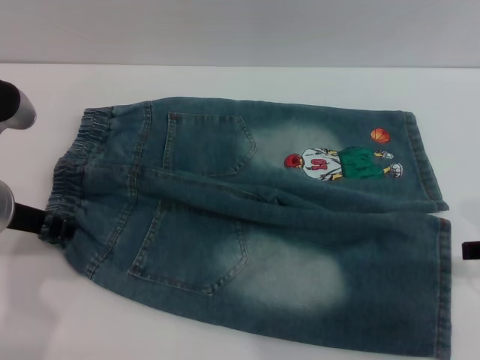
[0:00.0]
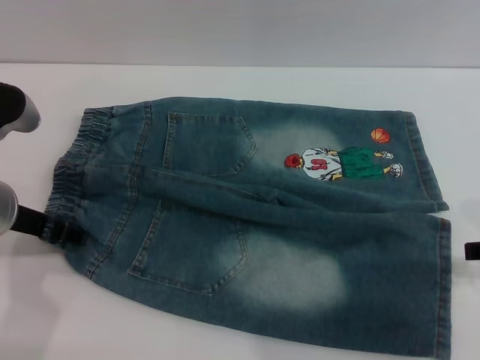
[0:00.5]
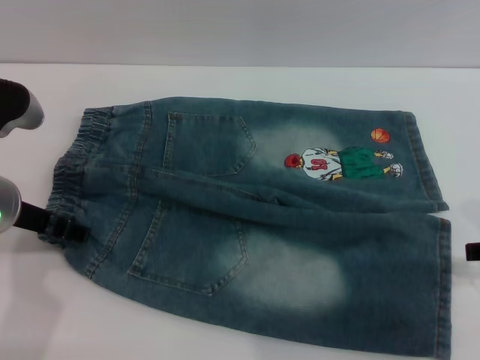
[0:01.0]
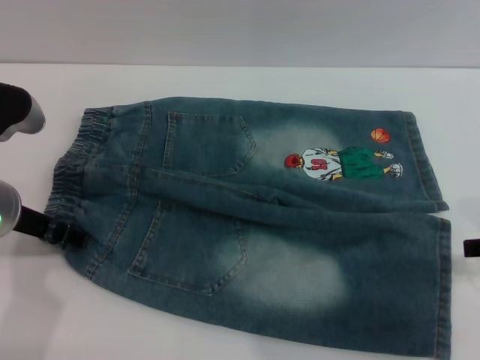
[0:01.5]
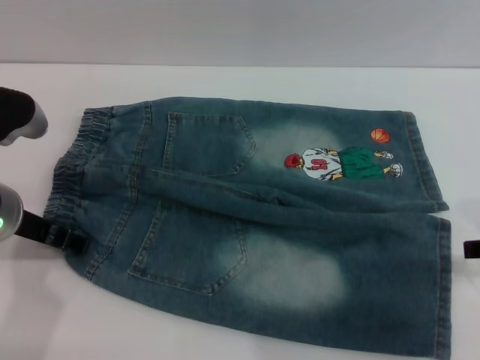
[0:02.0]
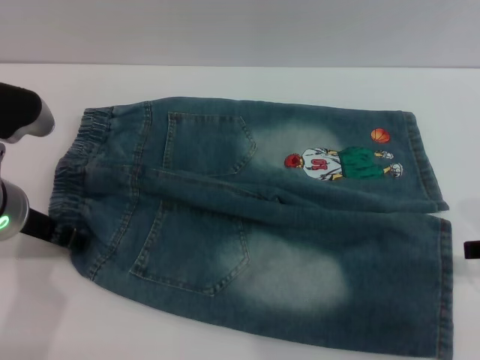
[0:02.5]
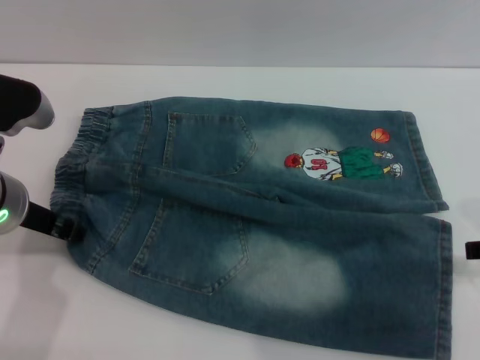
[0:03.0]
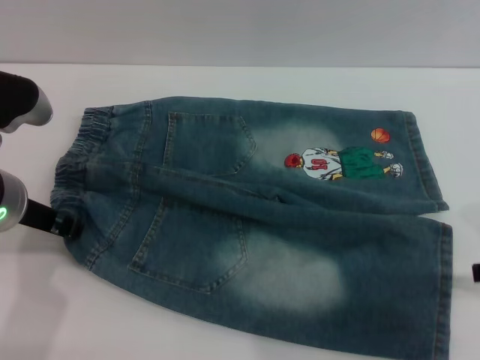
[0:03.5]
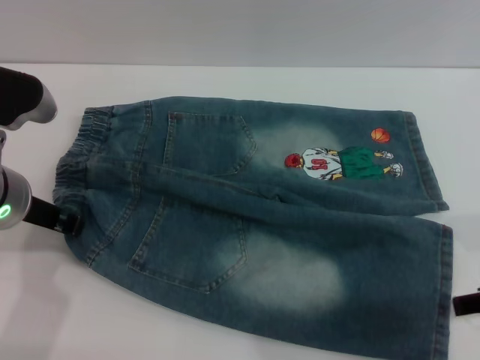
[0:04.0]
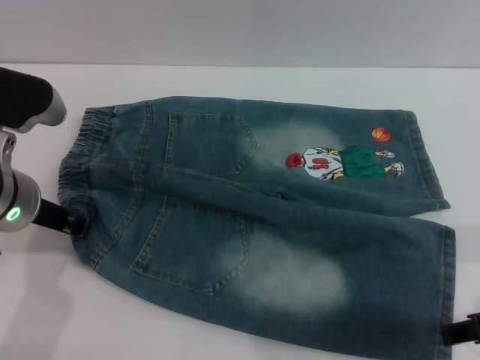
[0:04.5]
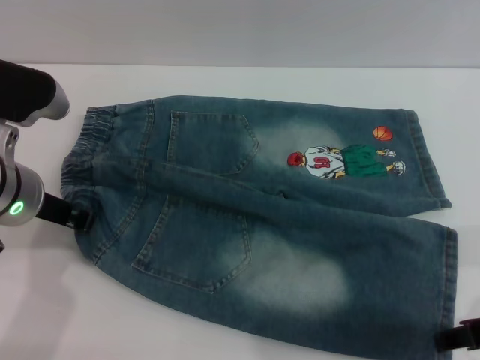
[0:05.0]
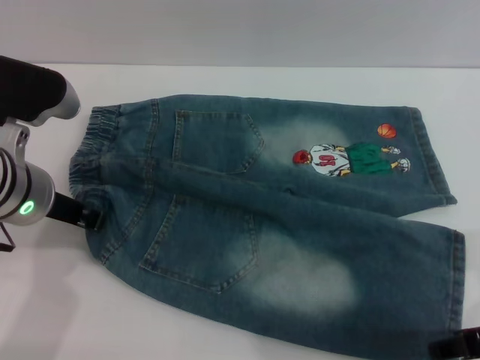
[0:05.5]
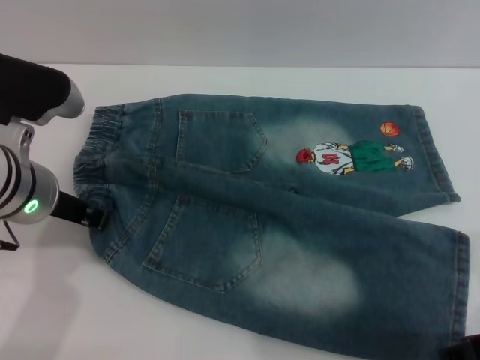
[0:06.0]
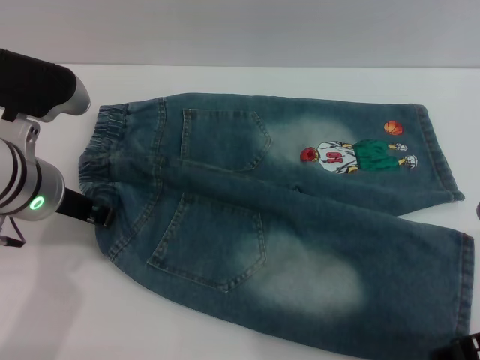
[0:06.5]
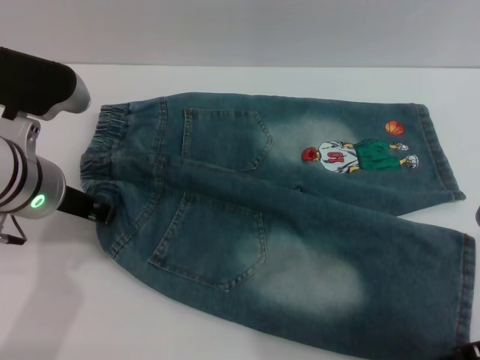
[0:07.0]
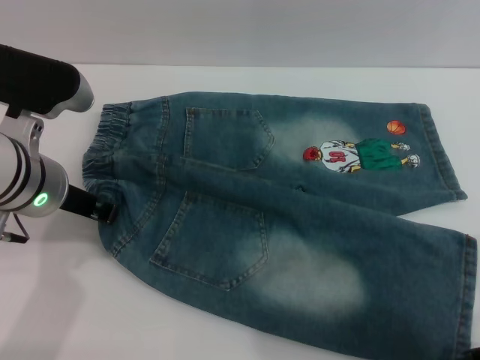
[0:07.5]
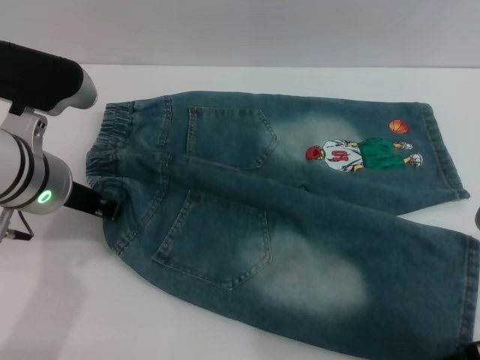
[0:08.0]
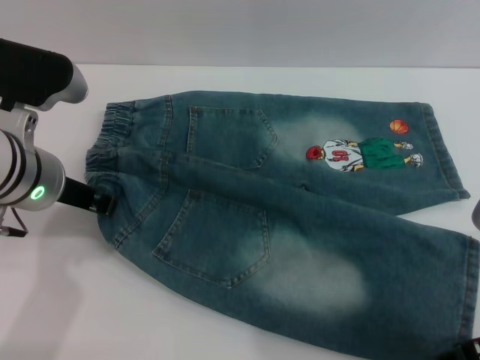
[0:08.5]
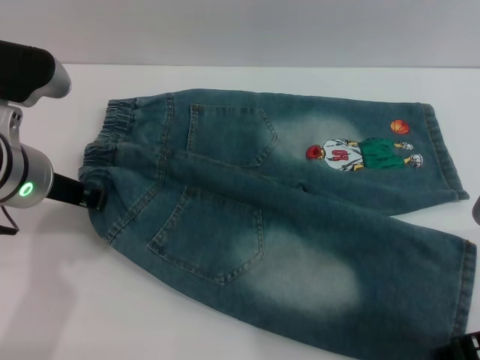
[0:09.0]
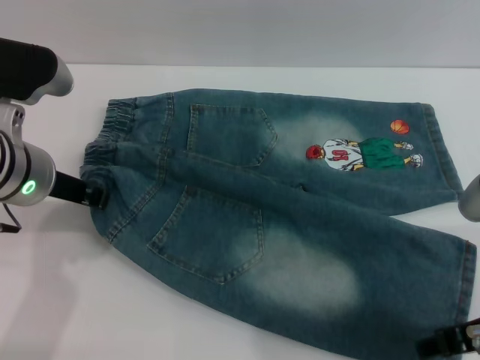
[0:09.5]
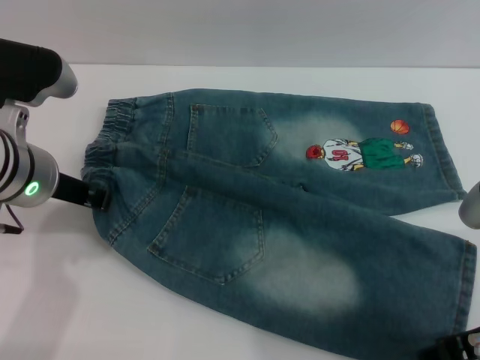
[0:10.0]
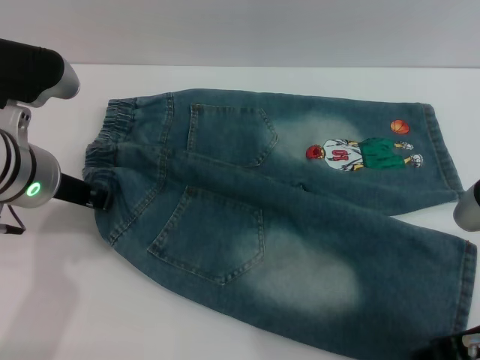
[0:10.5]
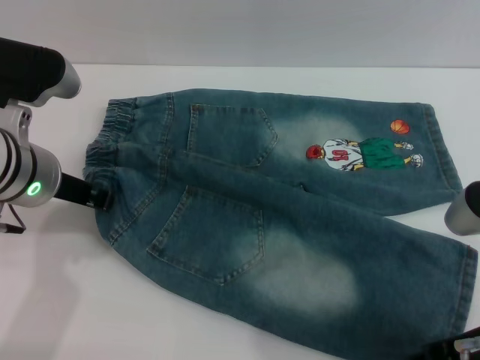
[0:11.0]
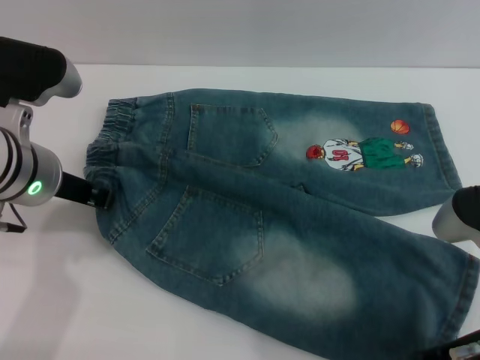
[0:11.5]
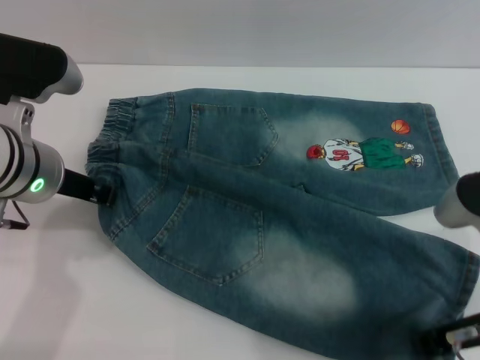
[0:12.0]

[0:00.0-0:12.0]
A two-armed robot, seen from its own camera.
0:00.0 to 0:02.0: The left gripper opens.
0:02.0 to 0:04.0: The left gripper closes its fingers.
0:04.0 to 0:06.0: There are only small adjustments of the grippers.
0:06.0 to 0:08.0: The two grippers keep their place.
0:08.0 to 0:10.0: The grippers make only small movements.
0:10.0 to 0:12.0: The right gripper closes up.

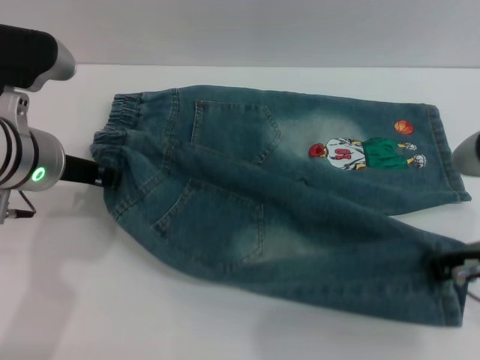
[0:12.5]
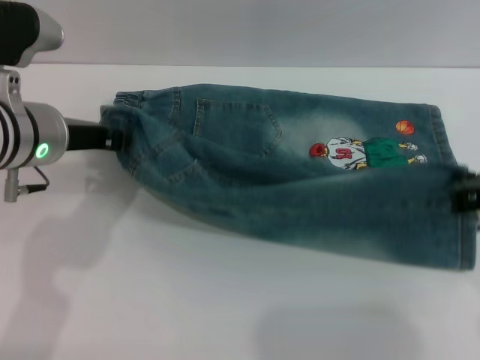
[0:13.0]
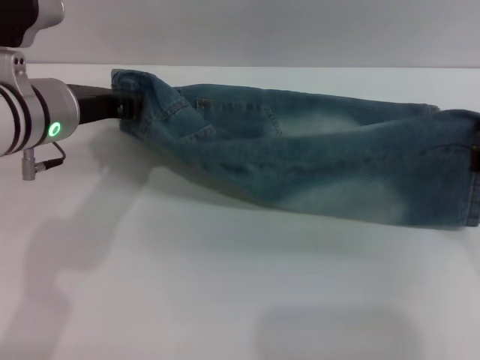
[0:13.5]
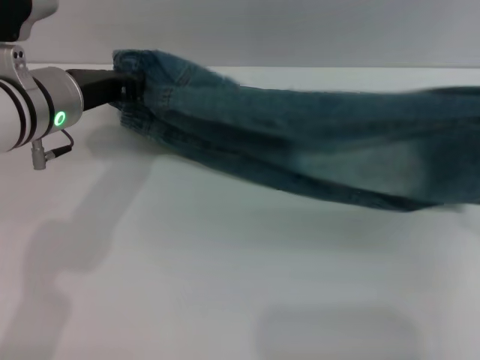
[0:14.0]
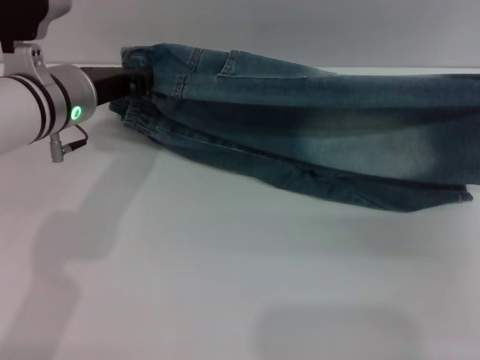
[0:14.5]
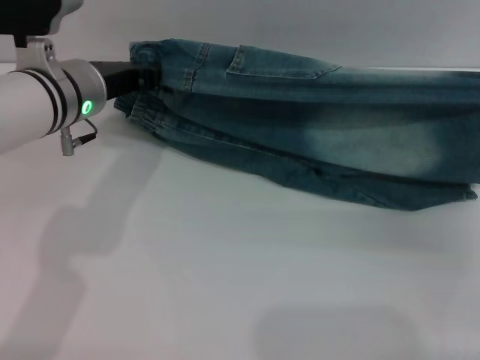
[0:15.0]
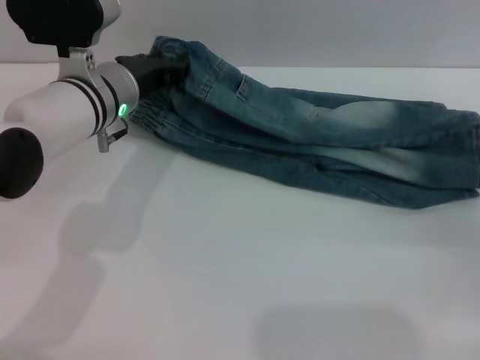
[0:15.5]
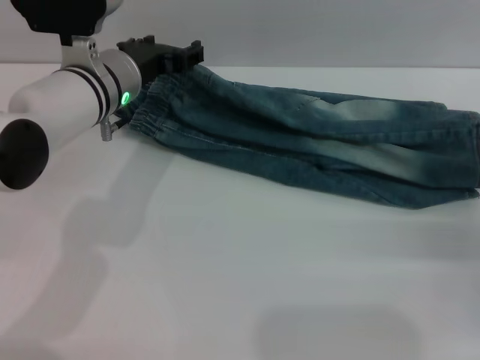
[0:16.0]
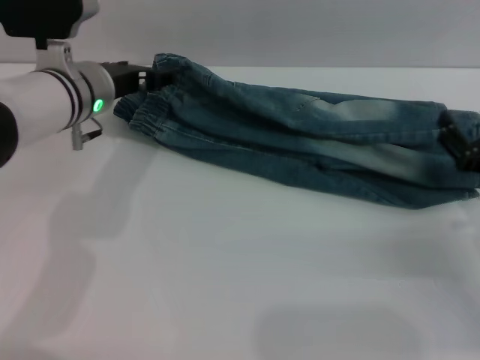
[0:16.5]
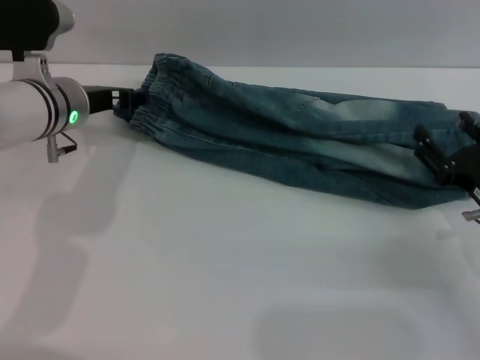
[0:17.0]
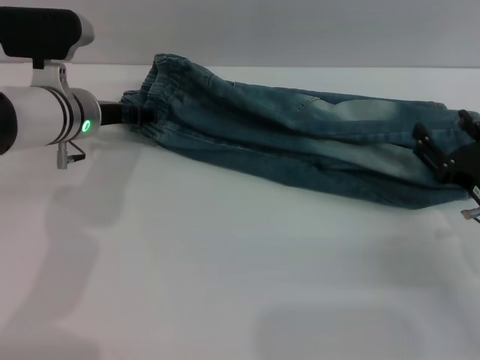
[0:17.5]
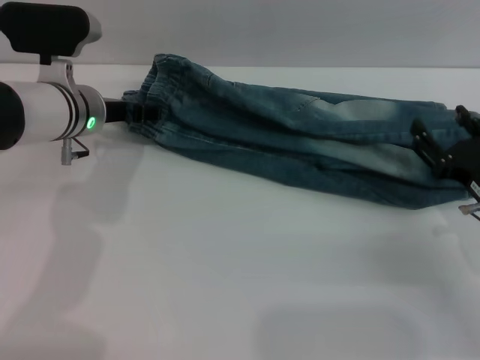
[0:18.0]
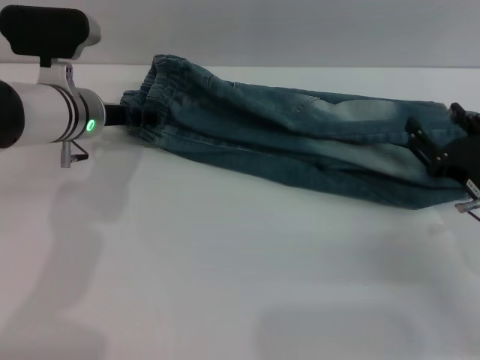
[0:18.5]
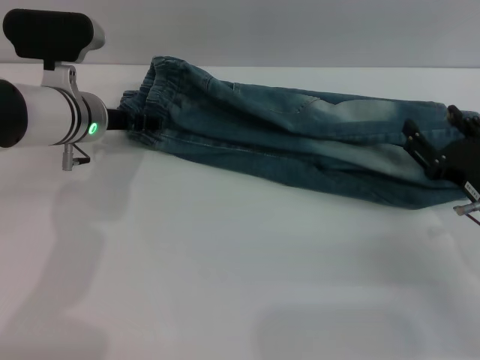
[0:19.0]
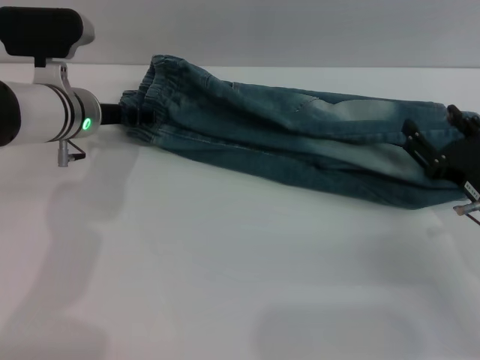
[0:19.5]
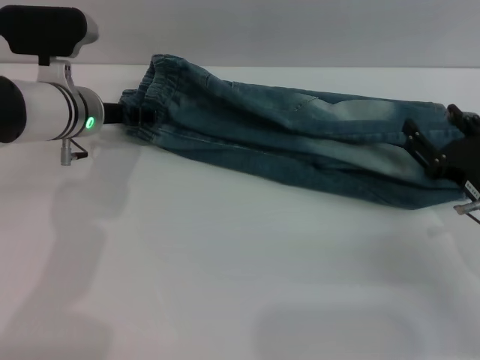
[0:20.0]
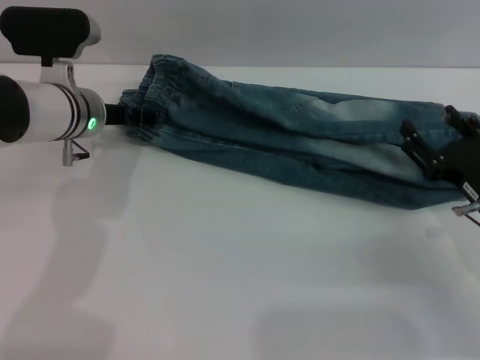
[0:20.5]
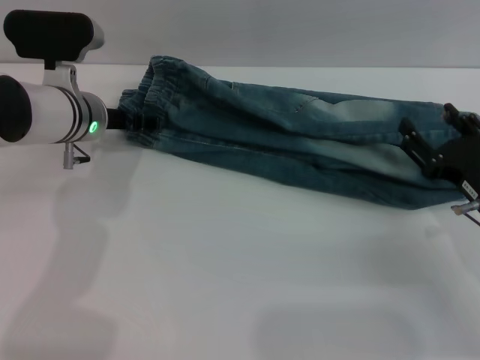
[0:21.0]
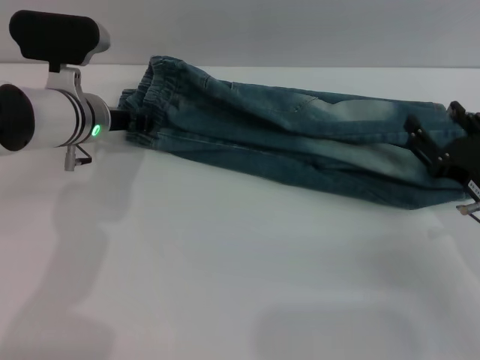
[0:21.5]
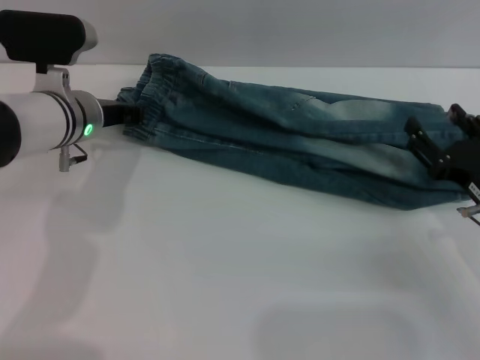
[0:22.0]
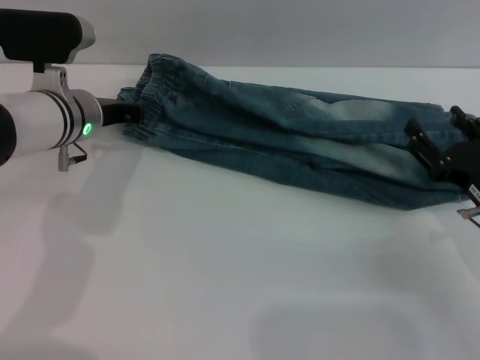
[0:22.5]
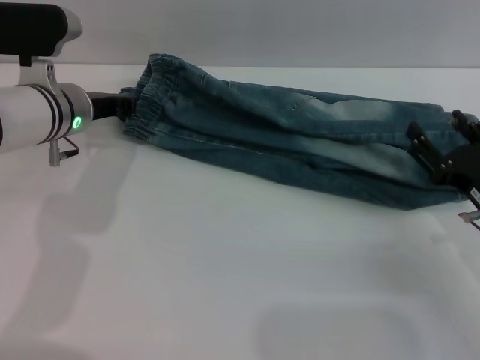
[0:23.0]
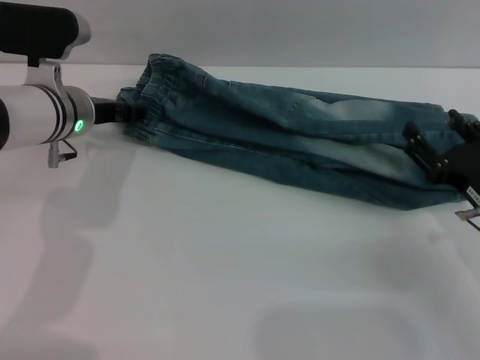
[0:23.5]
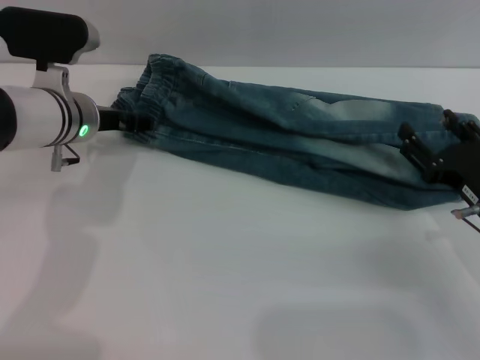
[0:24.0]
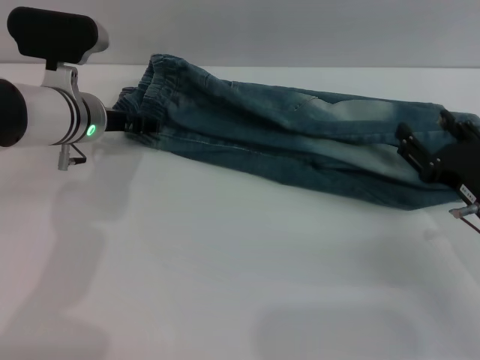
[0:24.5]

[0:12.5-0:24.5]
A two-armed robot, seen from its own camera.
Step, 0:12.5 to 0:23.0: Fold the bottom of the pants upward with both grippers.
0:12.5 to 0:14.5: The right gripper travels to the right by some 10 cm.
0:14.5 to 0:16.5: The left gripper opens up. Meanwhile the right gripper is displaced downward by about 10 cm, and opens its fingers.
0:16.5 to 0:18.5: The grippers make only small movements.
0:18.5 to 0:20.5: Neither gripper changes place.
0:20.5 to 0:22.5: The left gripper closes its fingers.
0:22.5 to 0:24.5: The left gripper opens up.

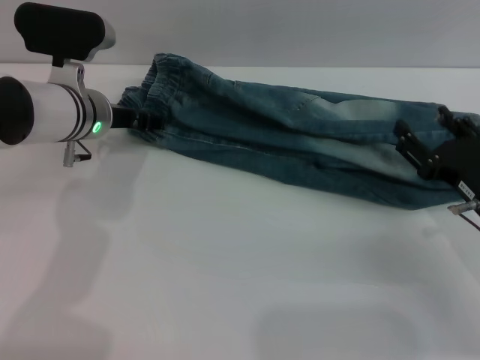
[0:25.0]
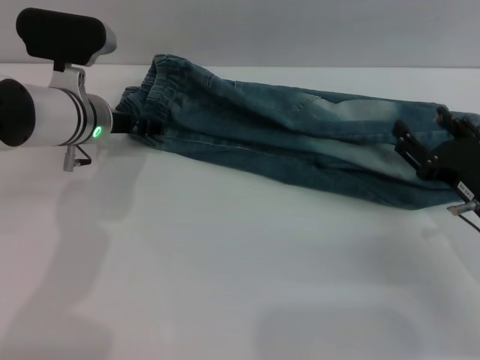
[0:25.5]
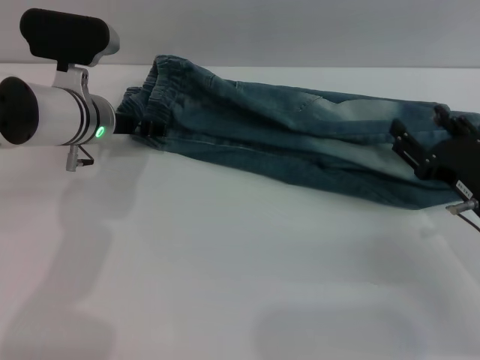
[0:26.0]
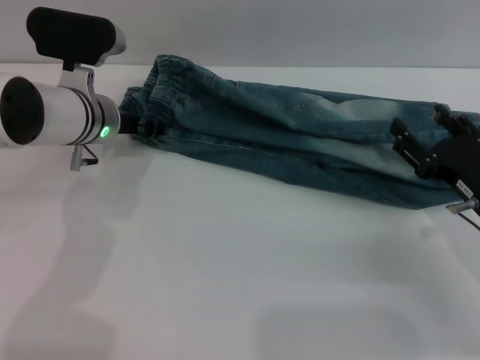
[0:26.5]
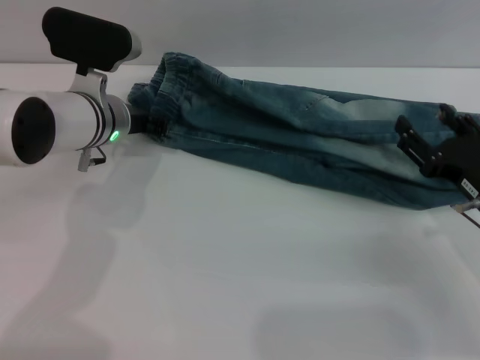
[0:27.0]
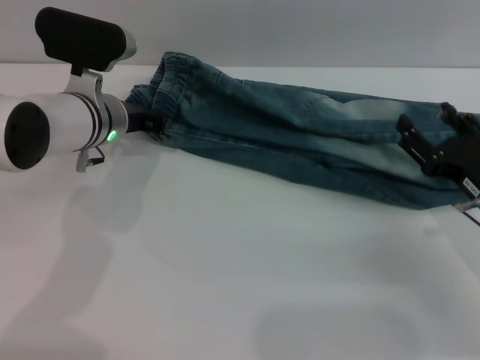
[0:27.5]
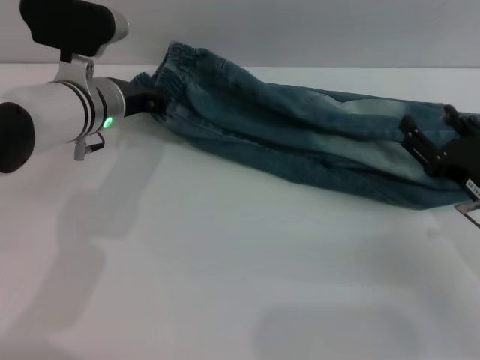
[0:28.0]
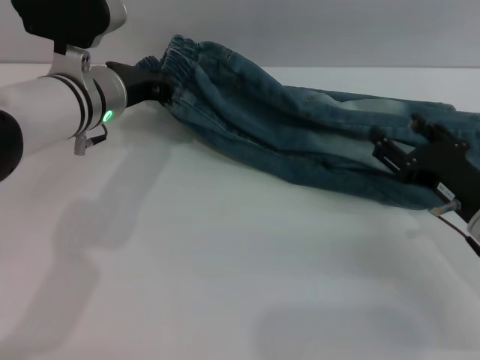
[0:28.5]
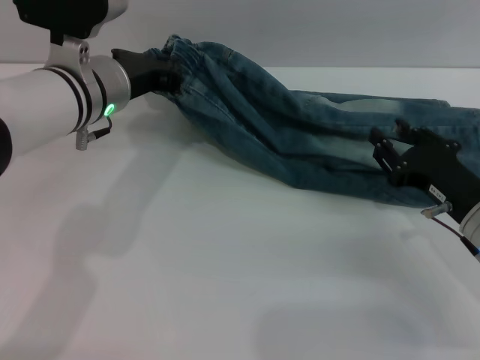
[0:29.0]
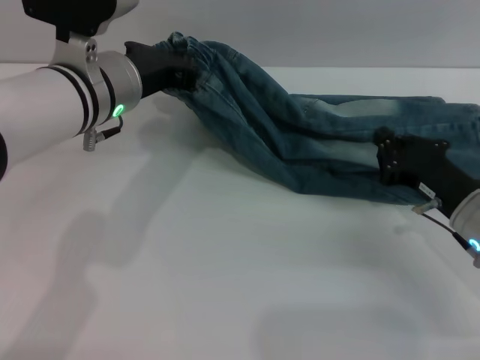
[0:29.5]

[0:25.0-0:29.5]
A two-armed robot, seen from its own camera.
0:25.0 to 0:27.0: The left gripper closes up.
0:27.0 to 0:29.5: The left gripper heads upward and backward, covering some 10 cm, and closes its fingers. Meanwhile the right gripper closes.
